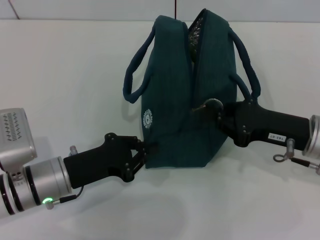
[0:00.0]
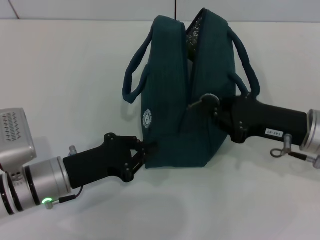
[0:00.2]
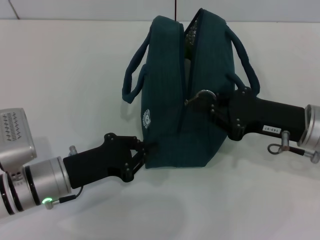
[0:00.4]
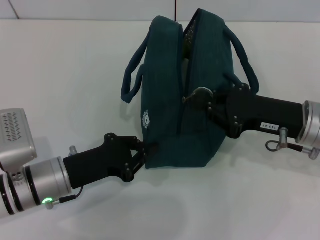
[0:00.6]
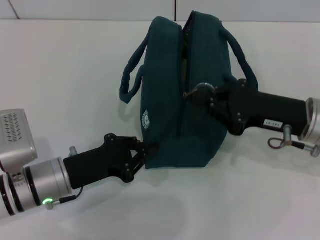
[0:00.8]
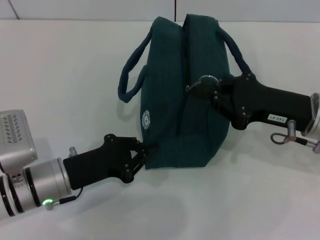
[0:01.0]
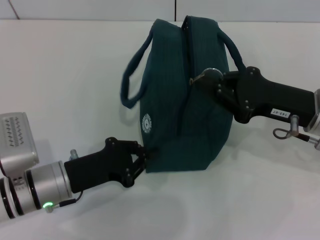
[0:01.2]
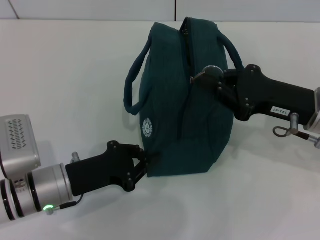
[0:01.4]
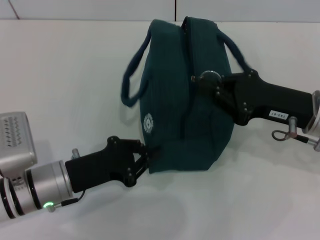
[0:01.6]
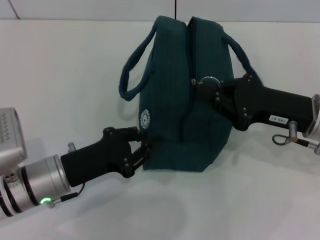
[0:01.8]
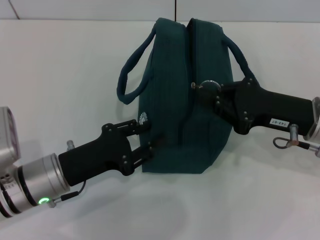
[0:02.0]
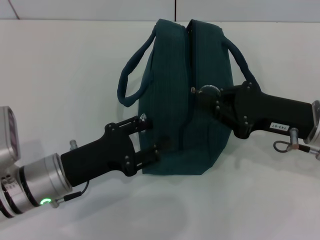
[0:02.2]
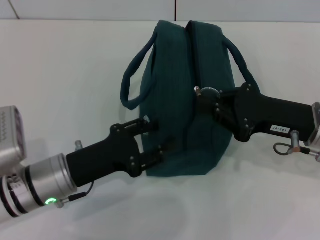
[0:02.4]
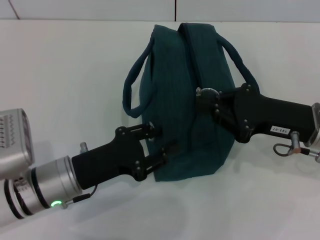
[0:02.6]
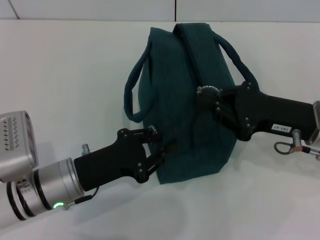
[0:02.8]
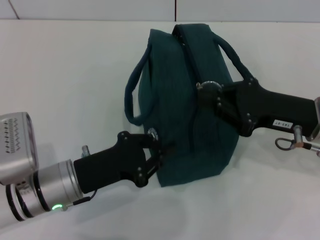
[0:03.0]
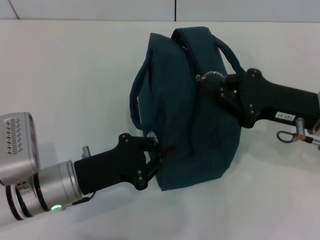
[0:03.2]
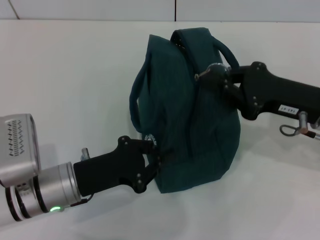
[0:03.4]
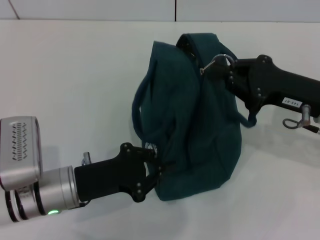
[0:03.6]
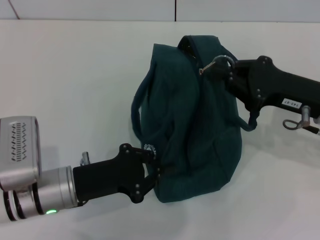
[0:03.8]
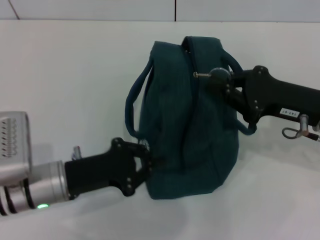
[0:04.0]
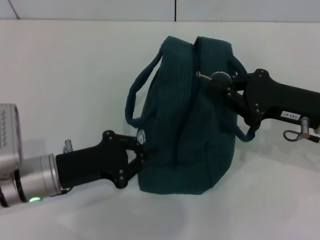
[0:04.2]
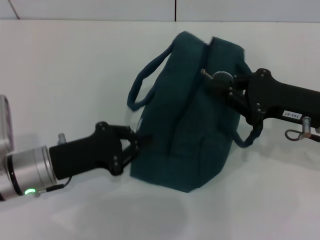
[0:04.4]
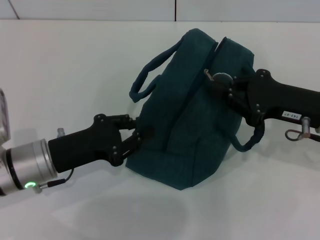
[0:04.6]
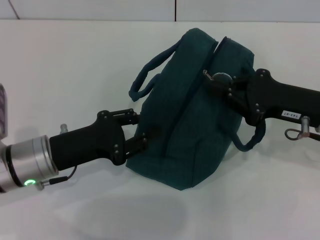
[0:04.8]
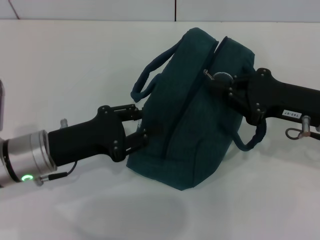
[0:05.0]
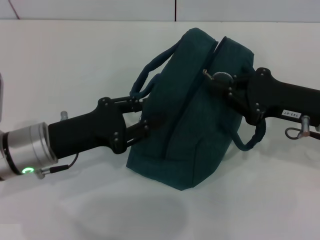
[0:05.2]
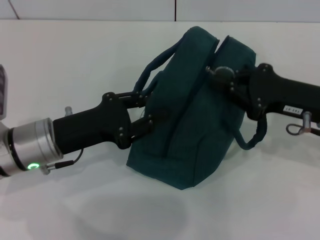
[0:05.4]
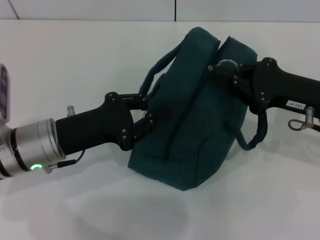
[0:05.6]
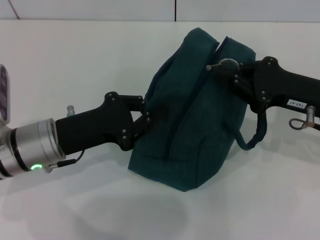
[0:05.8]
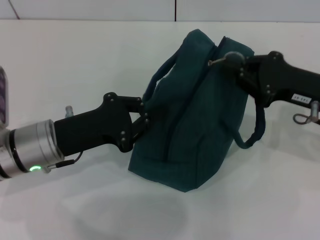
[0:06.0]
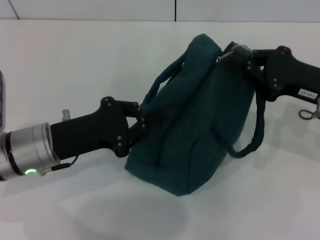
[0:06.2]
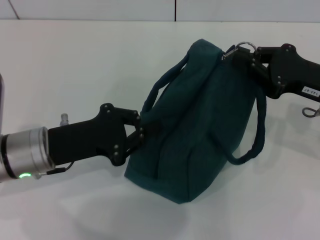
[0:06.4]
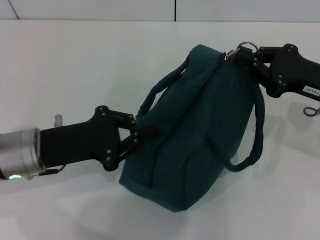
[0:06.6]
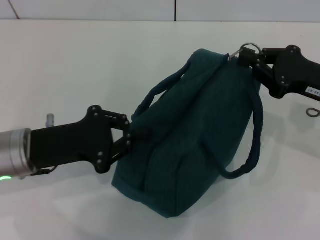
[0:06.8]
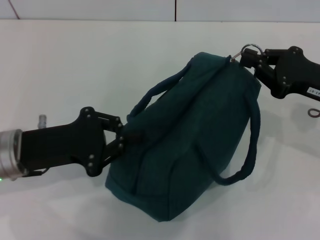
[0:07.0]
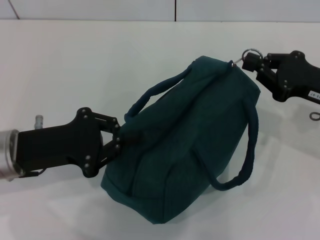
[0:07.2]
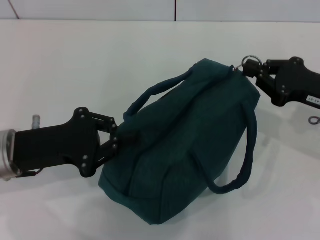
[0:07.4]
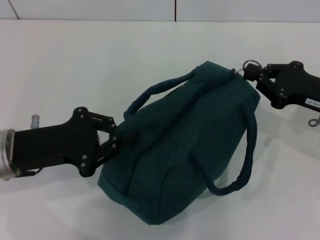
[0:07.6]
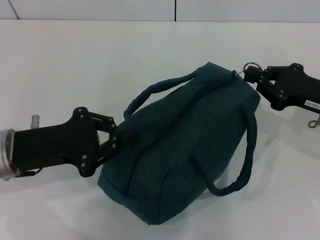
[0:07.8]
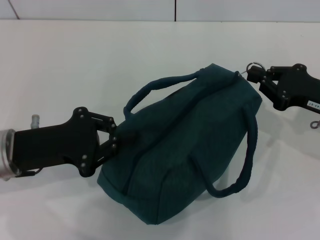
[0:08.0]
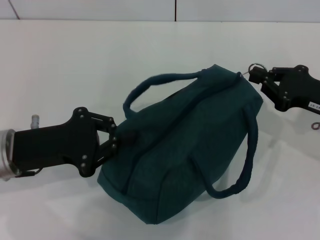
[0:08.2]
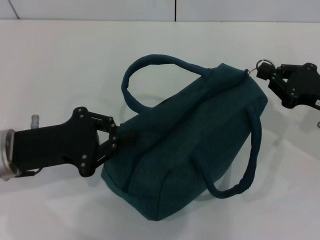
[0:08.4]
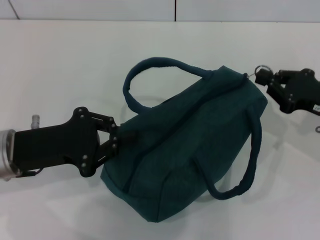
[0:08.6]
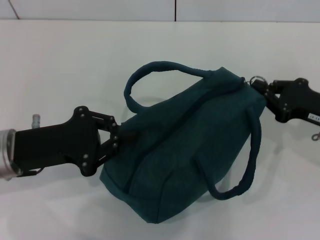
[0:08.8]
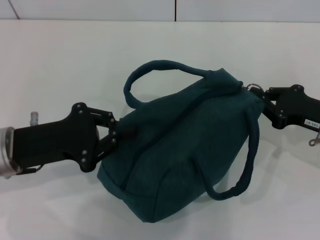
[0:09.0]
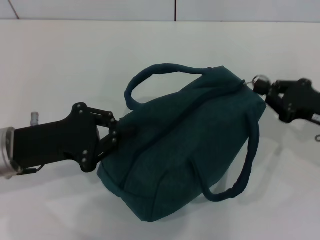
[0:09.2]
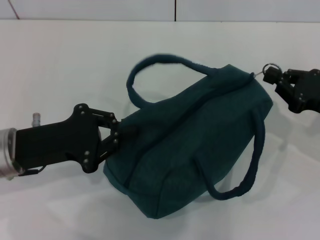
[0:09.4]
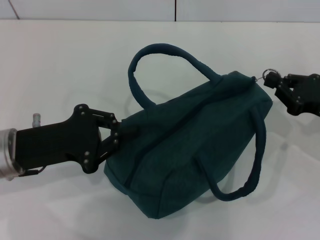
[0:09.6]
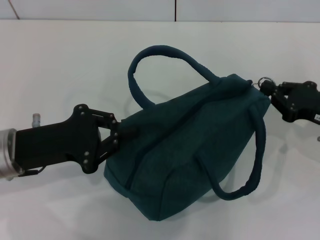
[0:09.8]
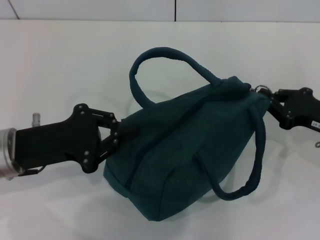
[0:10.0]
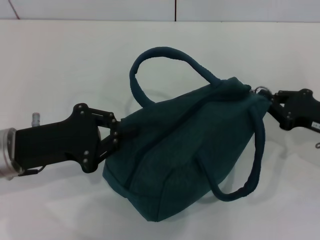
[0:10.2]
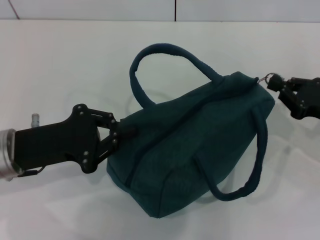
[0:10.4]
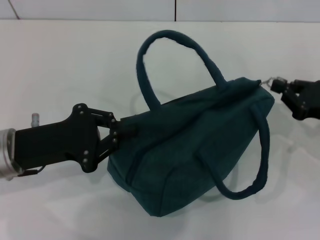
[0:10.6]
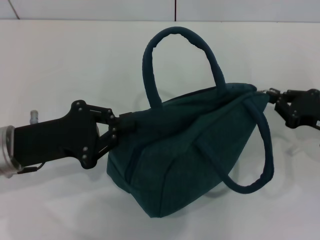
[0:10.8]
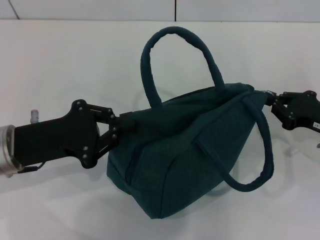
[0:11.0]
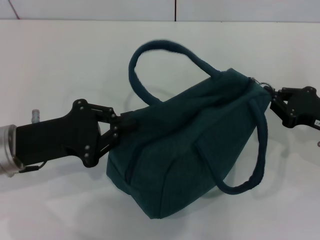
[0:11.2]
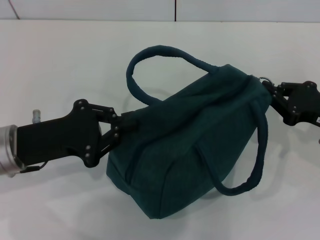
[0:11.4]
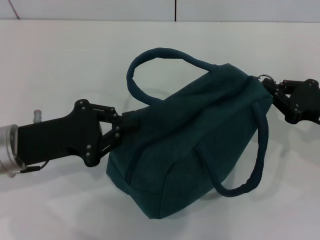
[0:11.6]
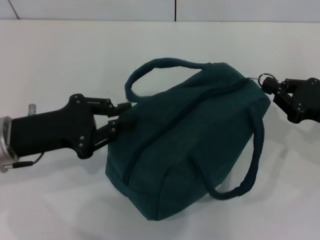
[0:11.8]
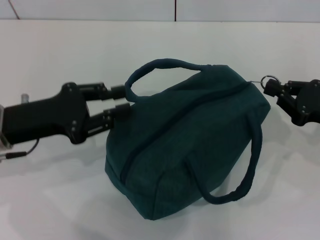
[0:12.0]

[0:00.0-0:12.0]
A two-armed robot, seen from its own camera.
Step, 0:00.0 to 0:12.0: Hold the lunch bag with your left hand.
0:00.0 to 0:01.6: The grippers make only small movements.
0:01.6 to 0:03.0: The left gripper opens and closes again.
0:03.0 to 0:04.4: There are only small adjustments of the grippers.
0:04.4 to 0:06.0: The grippers stay close to where they were, moving slightly.
0:06.0 to 0:07.6: The left gripper changes place by about 5 cm.
0:07.6 to 0:12.0: The grippers stay close to where they were, moving slightly.

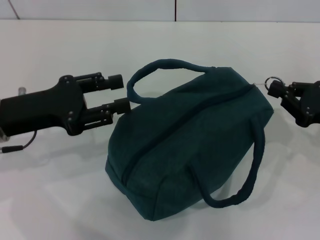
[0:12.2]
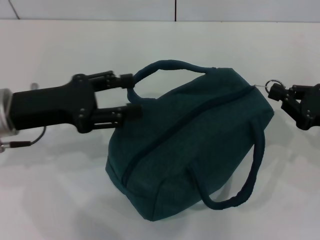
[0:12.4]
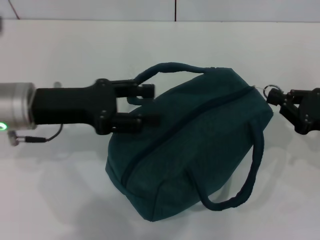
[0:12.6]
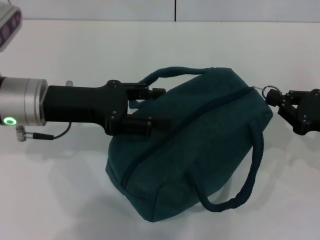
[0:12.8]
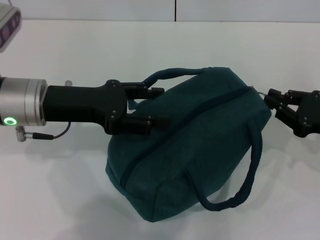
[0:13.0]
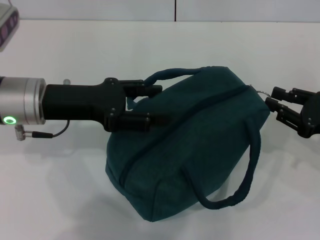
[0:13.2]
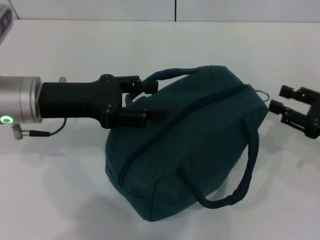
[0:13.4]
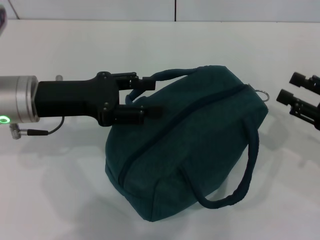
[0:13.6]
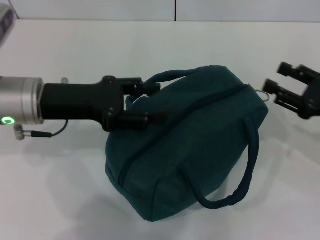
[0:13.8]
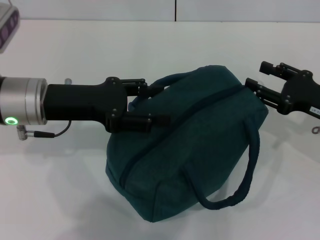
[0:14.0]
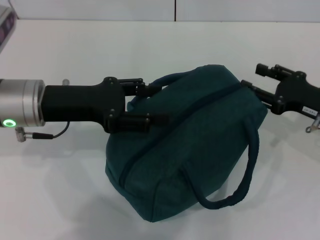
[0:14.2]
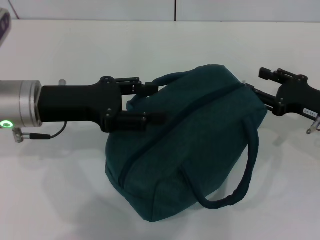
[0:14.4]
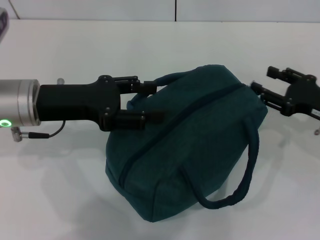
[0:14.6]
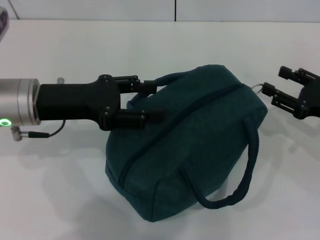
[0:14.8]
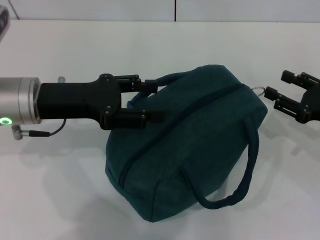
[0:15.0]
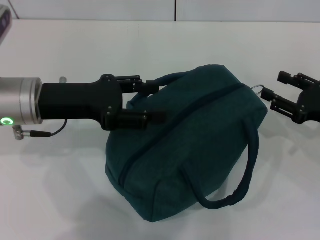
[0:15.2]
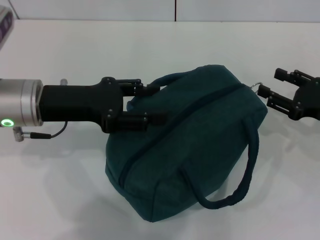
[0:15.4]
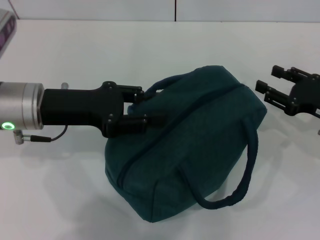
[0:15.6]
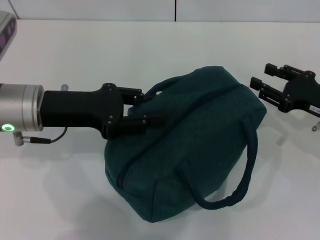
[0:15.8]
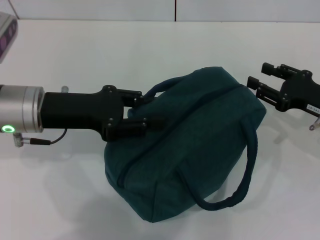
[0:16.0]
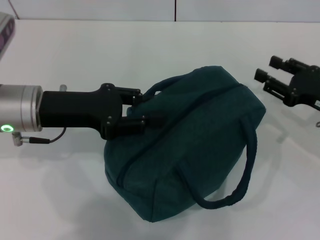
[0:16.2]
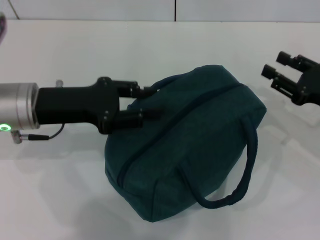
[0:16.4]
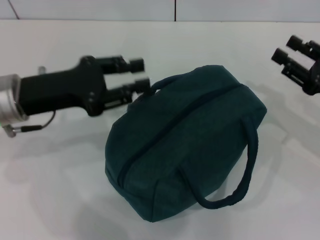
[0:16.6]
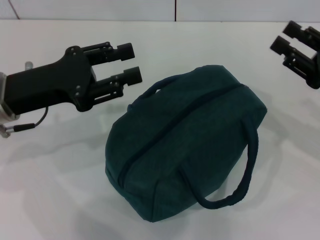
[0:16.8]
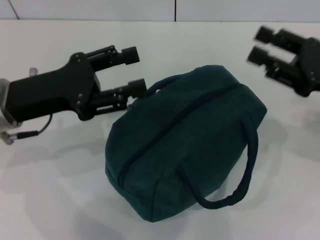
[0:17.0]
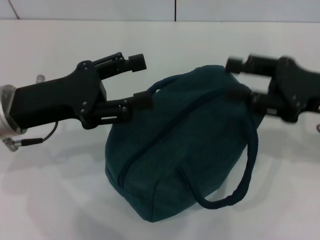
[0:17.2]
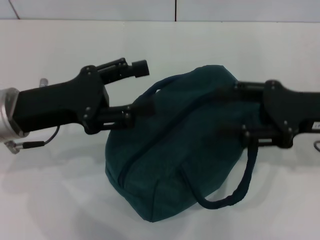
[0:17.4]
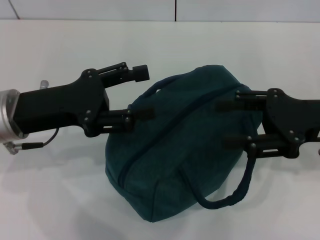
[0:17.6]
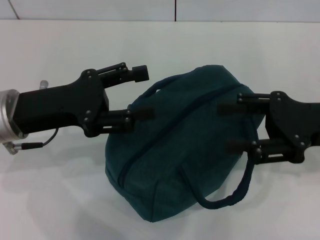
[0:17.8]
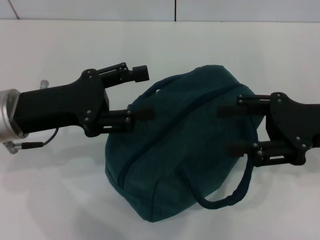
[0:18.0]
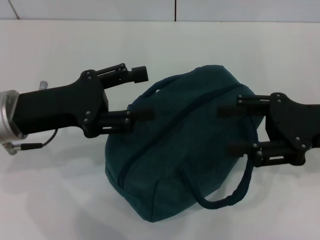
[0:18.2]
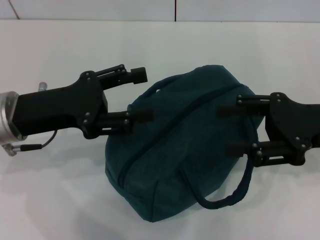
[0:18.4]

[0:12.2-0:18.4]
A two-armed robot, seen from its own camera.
Step, 0:12.2 to 0:13.8: Zip up the lunch bag with your right hand.
0:12.2 to 0:13.8: The right gripper opens; the left gripper shifts by approximately 5 cm, and opens.
0:13.8 to 0:15.4: The grippers stay close to where they were, moving slightly.
0:16.8 to 0:18.4: The left gripper opens its fingers. The right gripper ends up about 5 cm from where it was.

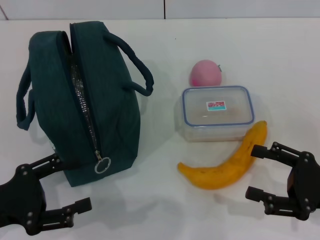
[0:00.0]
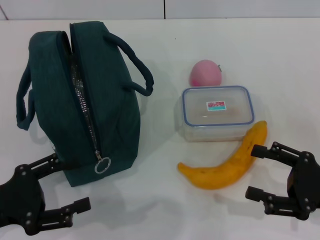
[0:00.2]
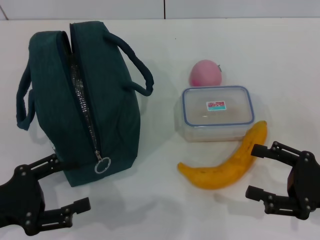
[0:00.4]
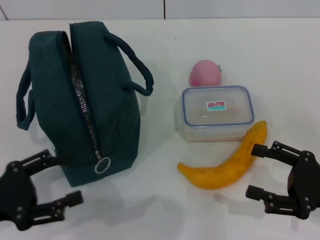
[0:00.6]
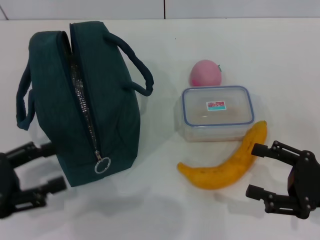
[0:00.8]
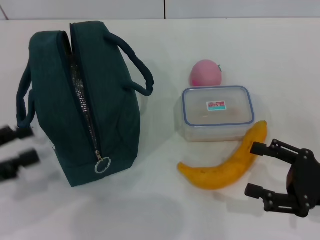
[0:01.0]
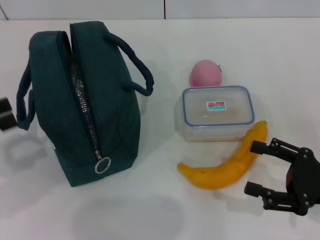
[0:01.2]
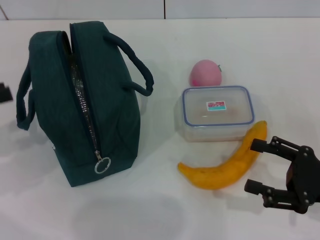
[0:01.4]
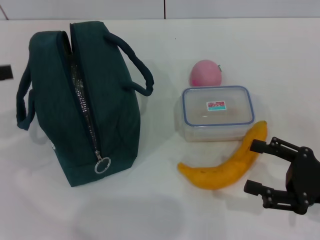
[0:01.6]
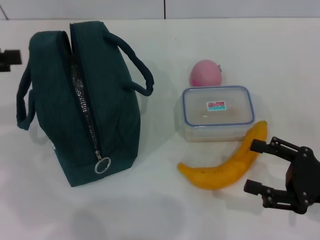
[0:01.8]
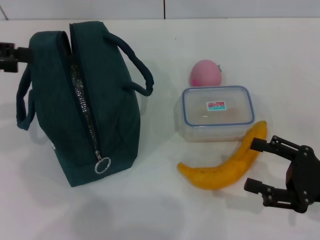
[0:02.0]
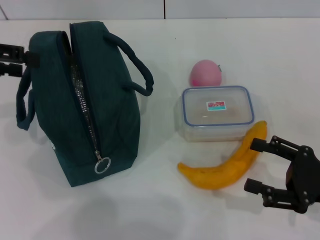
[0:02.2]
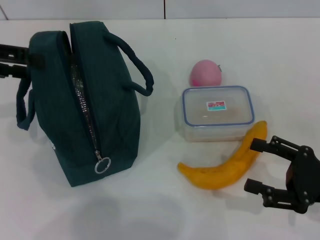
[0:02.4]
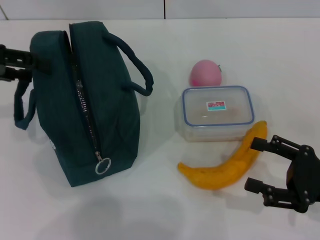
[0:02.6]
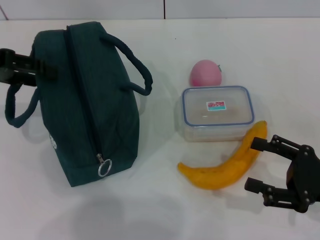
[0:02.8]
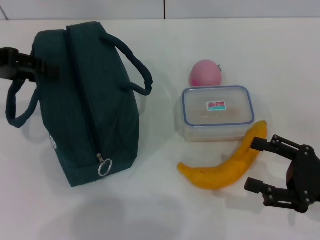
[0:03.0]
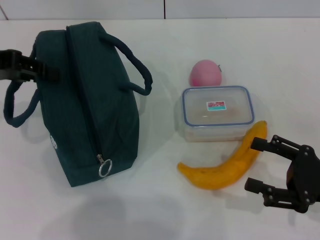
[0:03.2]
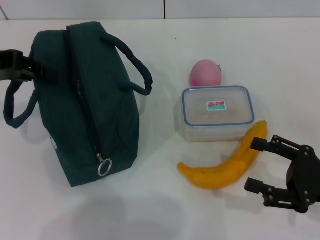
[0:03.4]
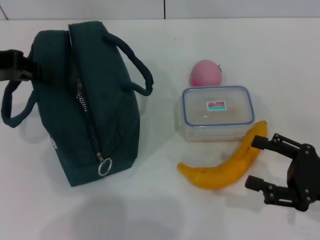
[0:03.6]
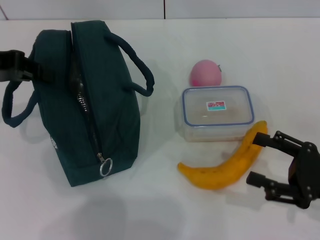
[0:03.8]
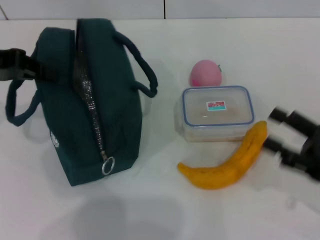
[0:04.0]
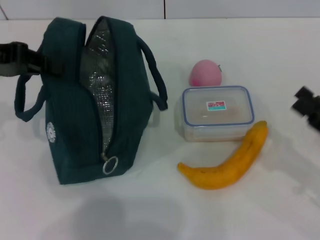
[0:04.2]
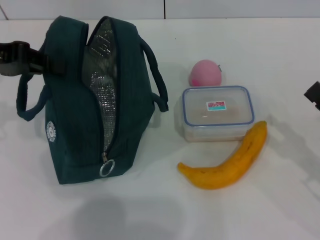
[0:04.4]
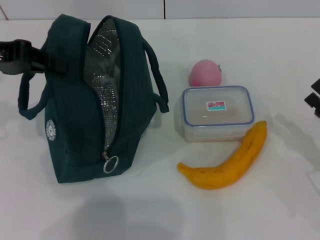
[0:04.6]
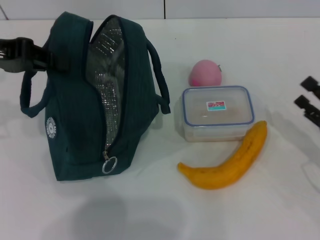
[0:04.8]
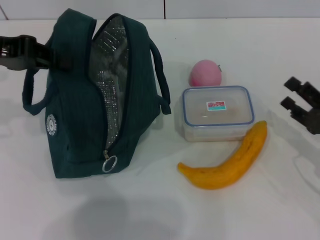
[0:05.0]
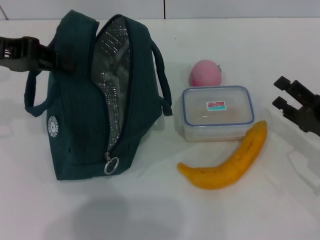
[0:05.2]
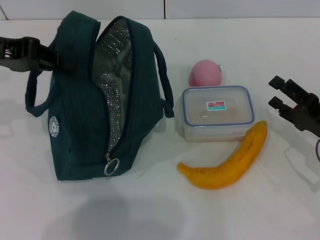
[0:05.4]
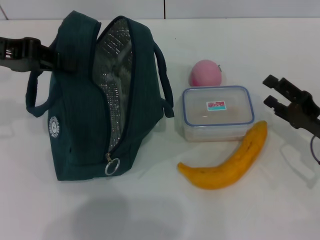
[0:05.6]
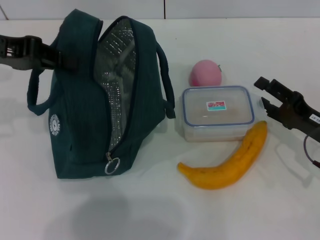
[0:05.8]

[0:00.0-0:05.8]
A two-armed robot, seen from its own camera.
Step, 0:00.0 to 0:04.8: Hold the lunch bag with your left hand.
0:00.0 to 0:01.4: The left gripper travels upward, to the left and forward by approximately 15 cm.
0:01.4 to 0:02.8: The left gripper heads forward and to the right, covering roughly 10 cm.
0:02.8 to 0:04.4: The left gripper closes up.
0:04.4 to 0:05.8: The right gripper moves forward, approximately 5 cm.
